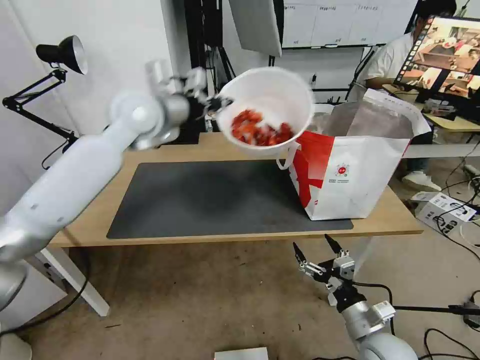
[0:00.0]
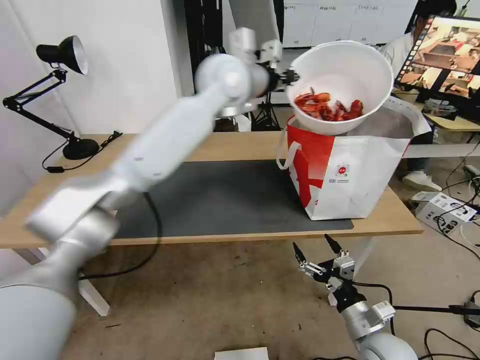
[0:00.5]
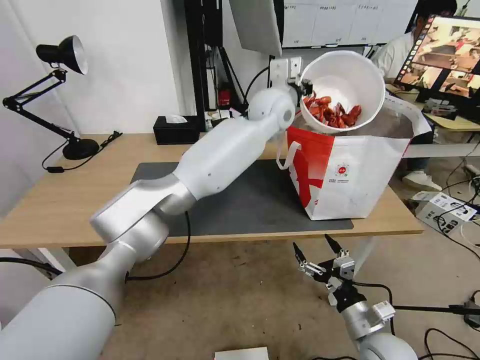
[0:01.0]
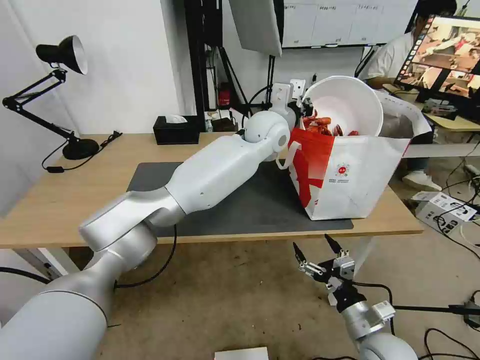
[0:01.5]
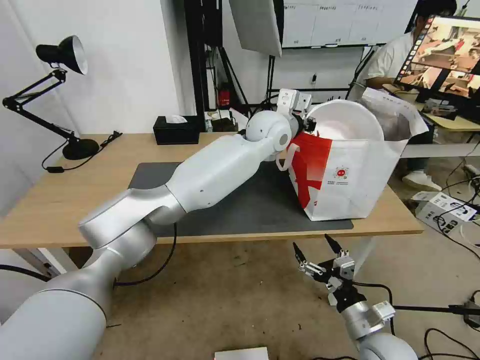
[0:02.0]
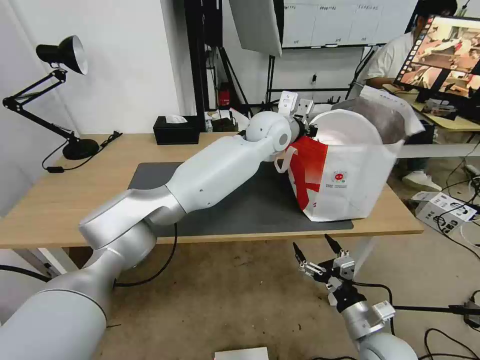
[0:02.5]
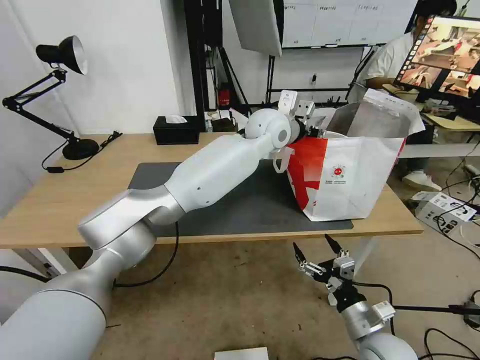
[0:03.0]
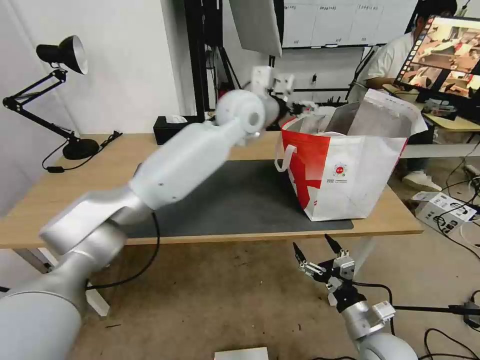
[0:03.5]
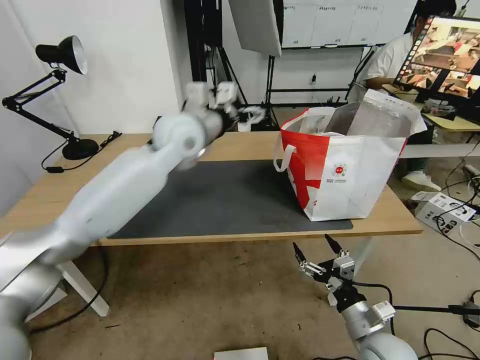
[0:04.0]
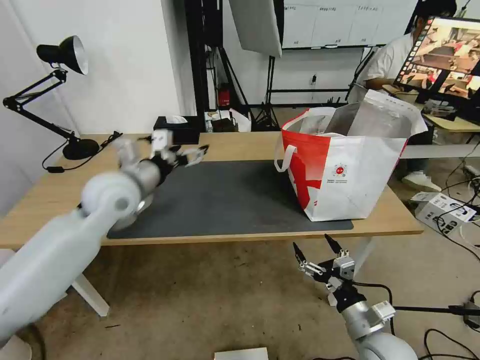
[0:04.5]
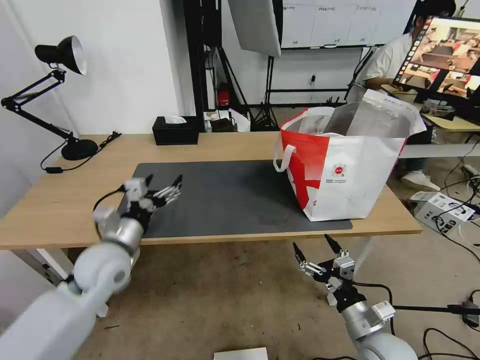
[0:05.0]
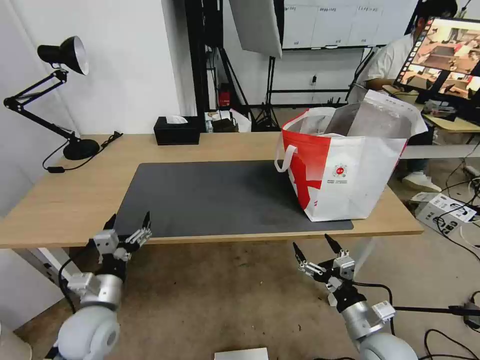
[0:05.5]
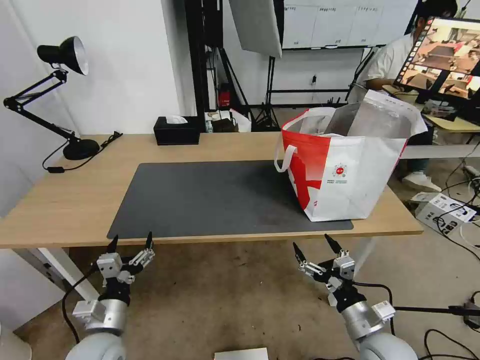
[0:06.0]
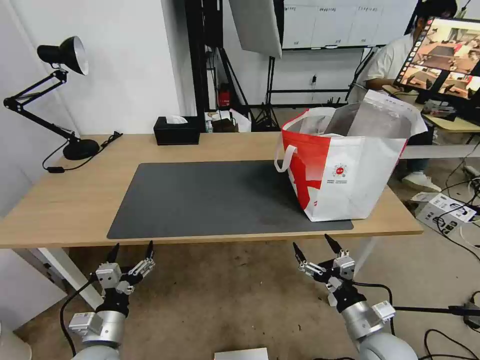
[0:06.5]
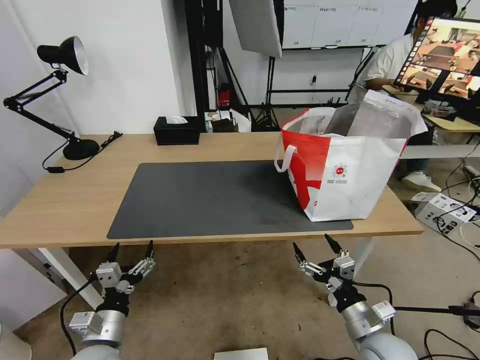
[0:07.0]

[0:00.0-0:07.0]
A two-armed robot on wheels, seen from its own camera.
Task of the whole recording: Pick up the trash from the table and place it into the takeout bag.
0:00.0 to 0:02.0: The left gripper goes approximately 25 cm to the right.
0:02.0 to 0:03.5: The left gripper goes approximately 5 cm to the left, and opens.
0:03.5 to 0:05.0: The left gripper shifts roughly 40 cm to the left, downward and backward.
0:05.0 to 0:07.0: The left gripper goes approximately 20 cm backward and downward.

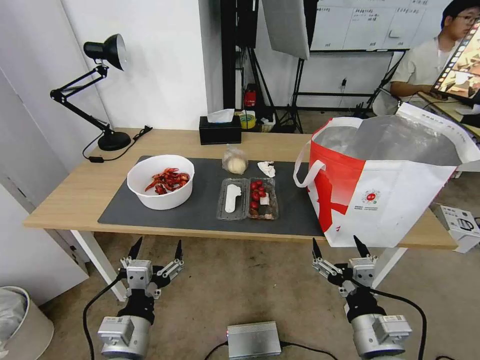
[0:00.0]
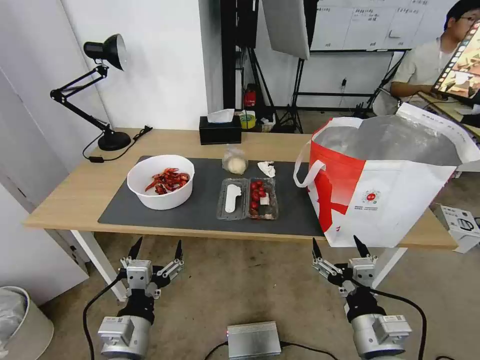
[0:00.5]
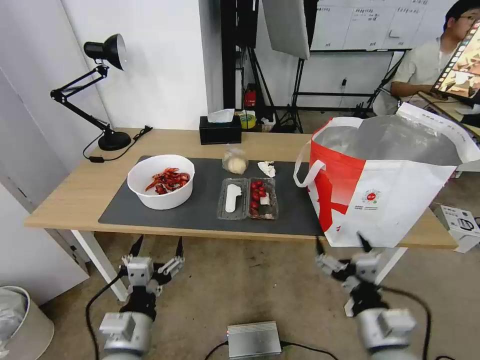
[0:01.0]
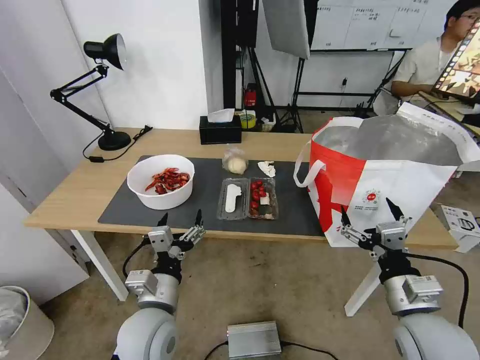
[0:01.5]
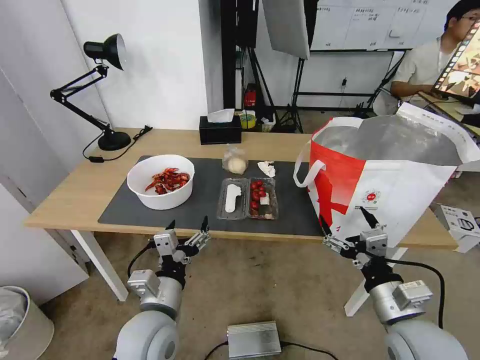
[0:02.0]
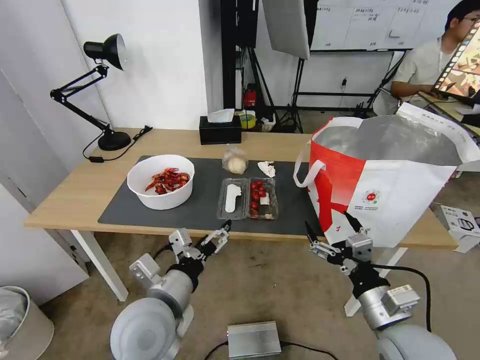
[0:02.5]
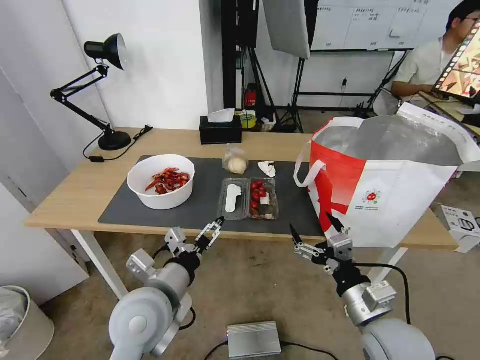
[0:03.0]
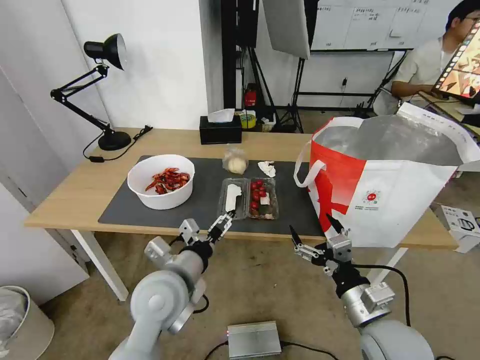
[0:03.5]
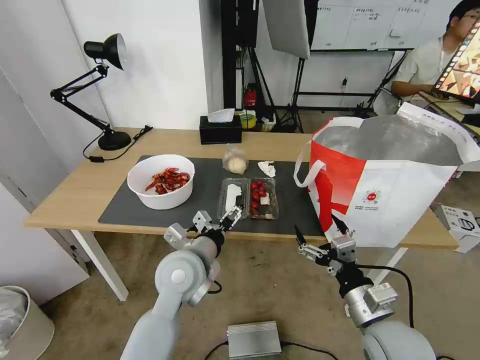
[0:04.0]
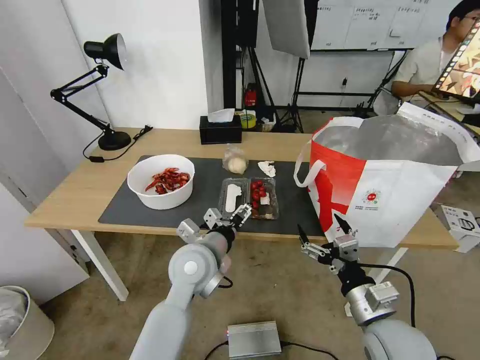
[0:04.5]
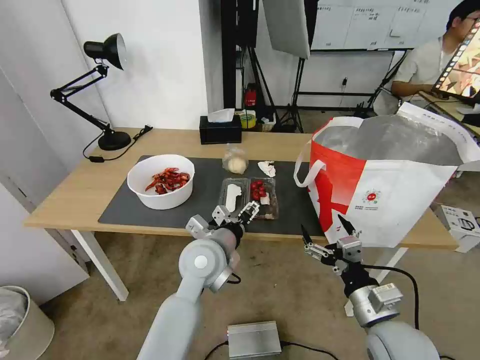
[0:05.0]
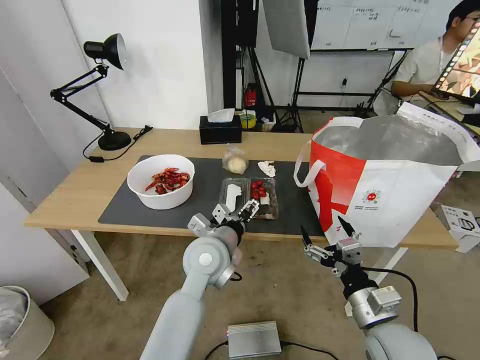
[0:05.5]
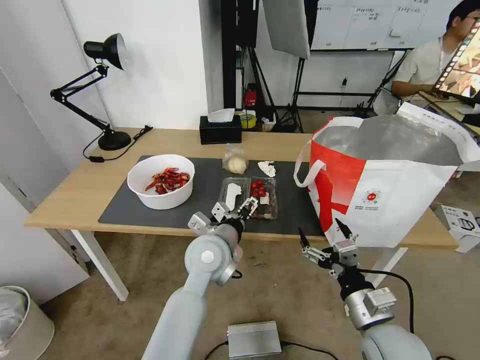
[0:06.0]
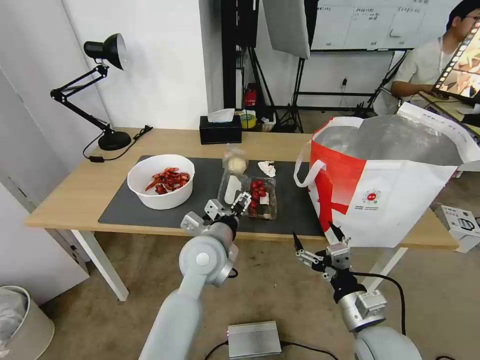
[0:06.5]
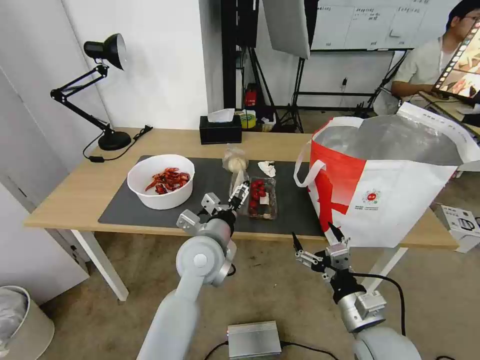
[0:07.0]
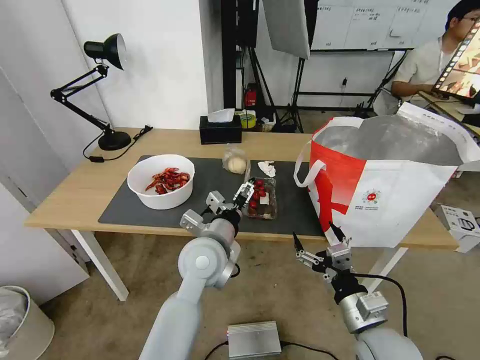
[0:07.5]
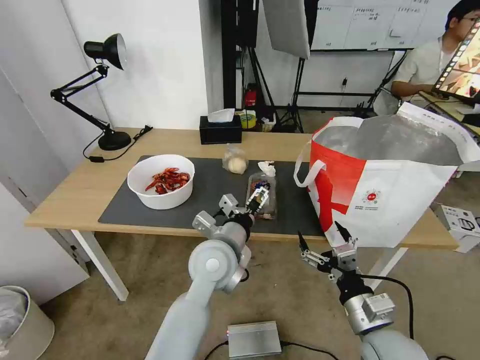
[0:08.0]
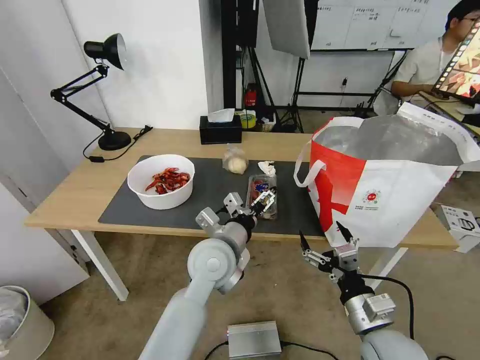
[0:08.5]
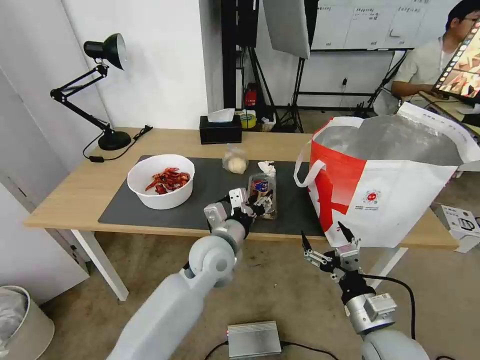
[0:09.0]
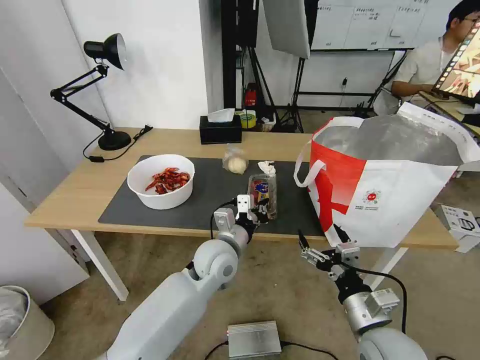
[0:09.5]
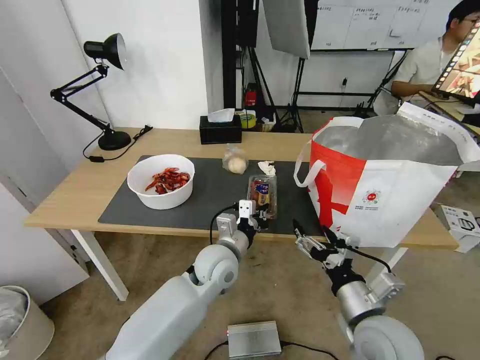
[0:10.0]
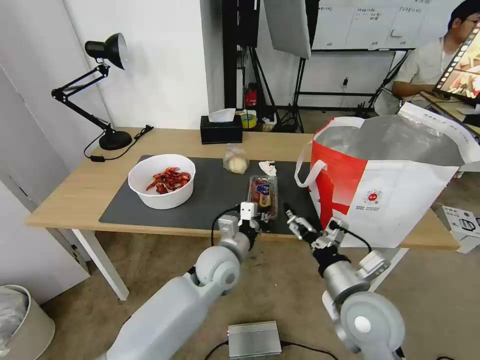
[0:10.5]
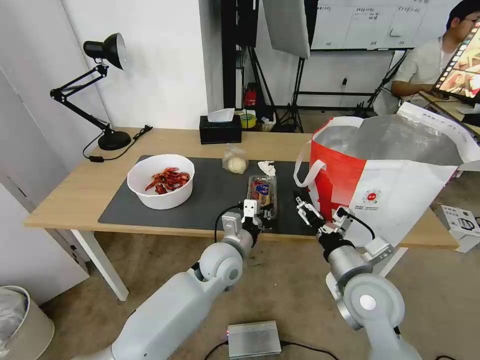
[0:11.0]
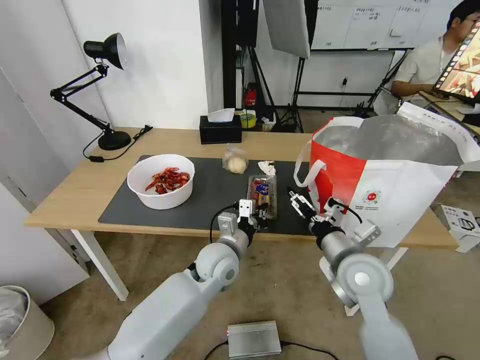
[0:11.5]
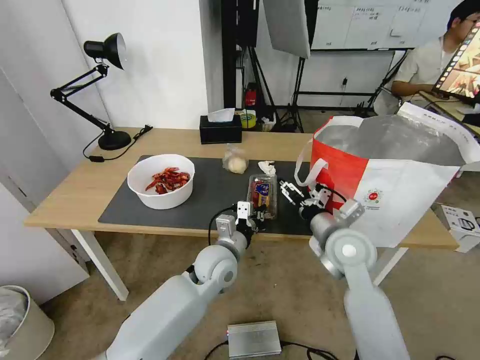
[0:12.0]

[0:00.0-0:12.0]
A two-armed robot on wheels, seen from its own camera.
Task of the whole recording: Pick up the trash from the table and place it into the takeout bag.
0:02.0 to 0:04.0: The left gripper moves forward, about 10 cm.
0:04.0 to 0:06.0: The left gripper moves some 5 cm.
0:06.0 to 0:08.0: The grippers make only small movements.
0:08.0 to 0:10.0: The left gripper shifts approximately 5 cm downward, and closes.
0:10.0 to 0:12.0: The right gripper moves forward, approximately 15 cm.

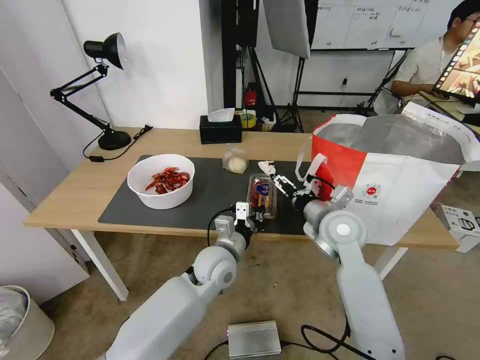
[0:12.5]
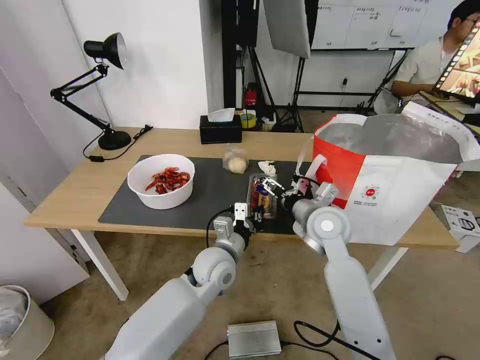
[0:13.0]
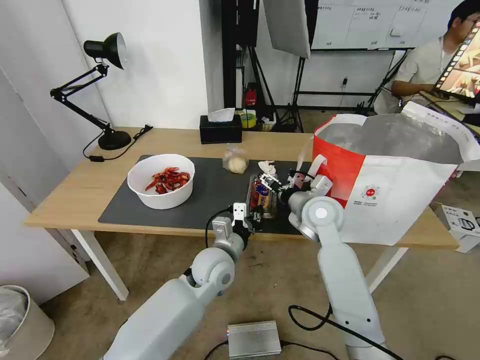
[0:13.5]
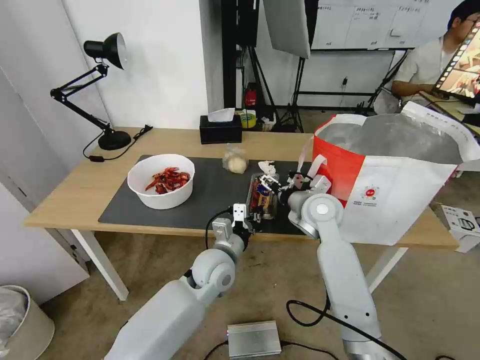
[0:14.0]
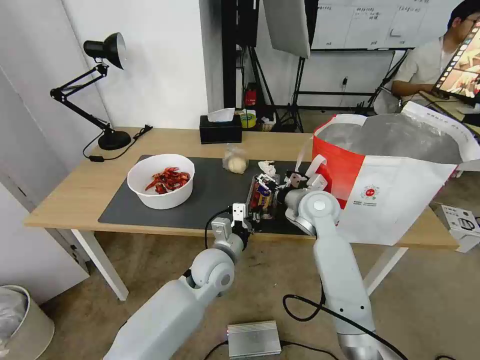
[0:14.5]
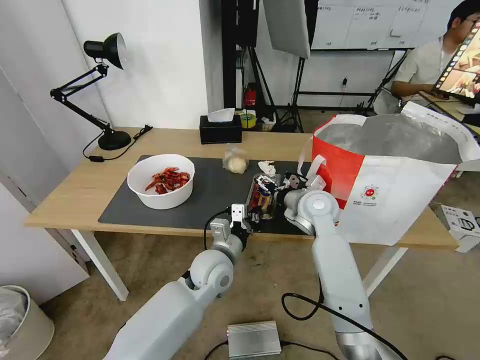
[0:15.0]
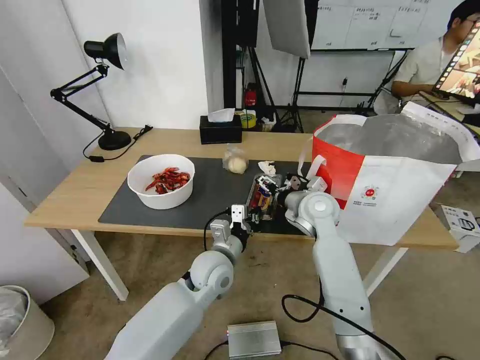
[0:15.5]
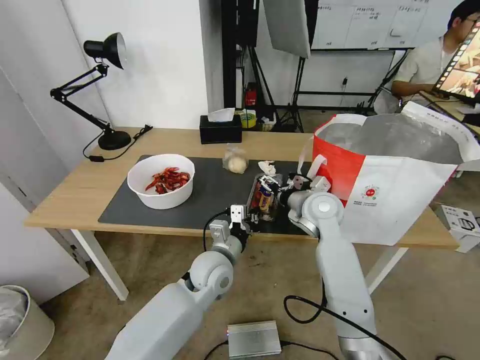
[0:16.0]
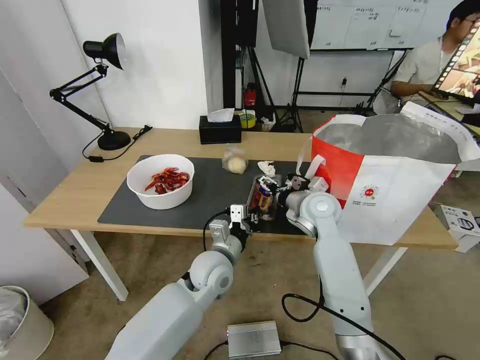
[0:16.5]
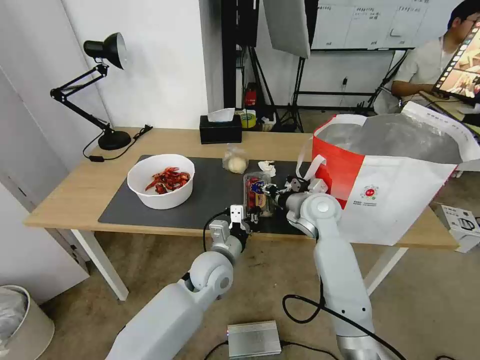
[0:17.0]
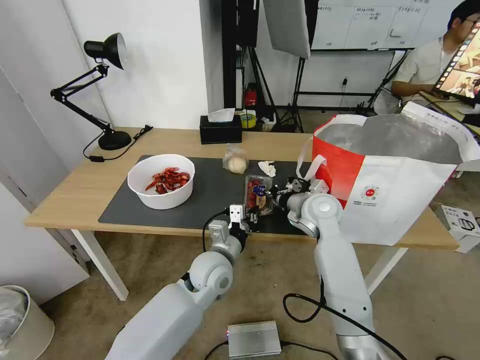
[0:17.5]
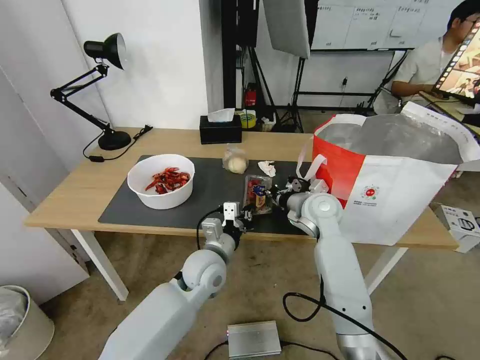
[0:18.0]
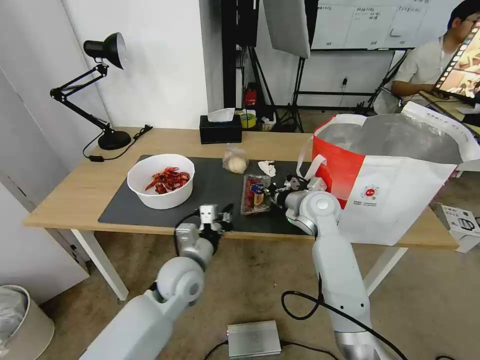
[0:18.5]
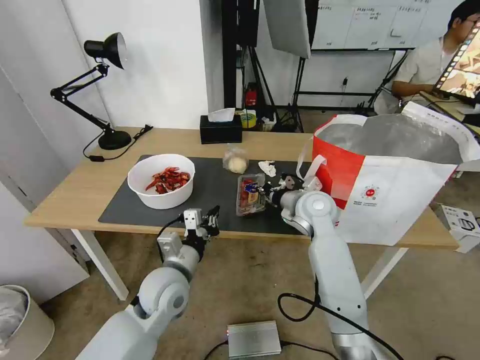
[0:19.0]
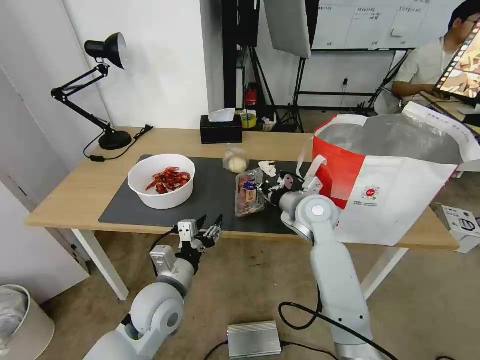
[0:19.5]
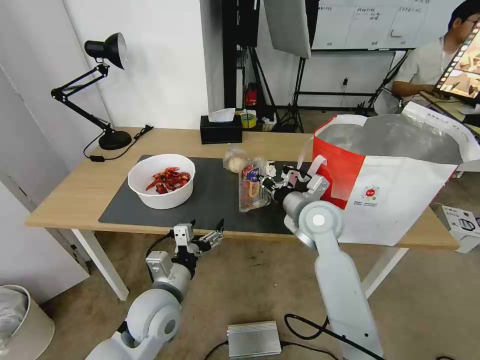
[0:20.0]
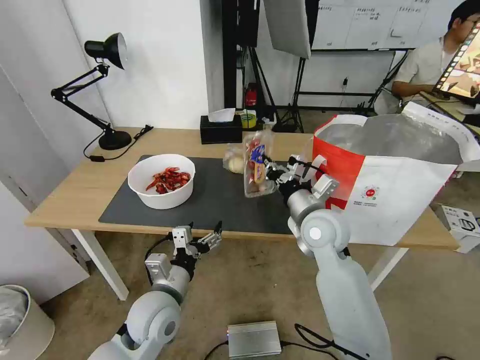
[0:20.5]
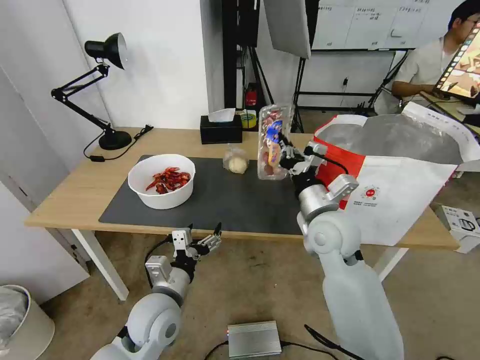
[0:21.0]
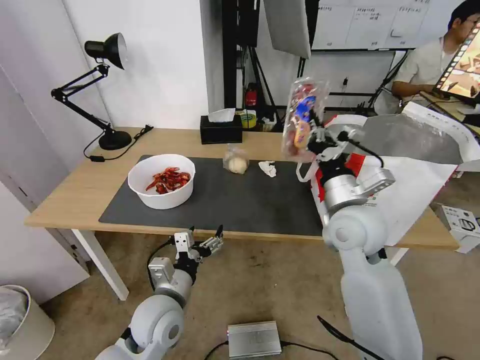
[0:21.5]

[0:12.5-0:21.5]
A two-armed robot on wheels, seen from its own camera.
Task of the whole recording: Pick up the trash from the table and place it into the takeout bag.
0:12.5 to 0:14.5: The right gripper shifts about 5 cm forward.
0:14.5 to 0:17.0: The right gripper closes up.
0:17.0 to 0:19.5: The left gripper travels to the left and backward by approximately 15 cm, and opens its fingers; the right gripper closes up.
0:19.5 to 0:21.5: The left gripper opens up, while the right gripper travels backward and upward by roughly 10 cm.
